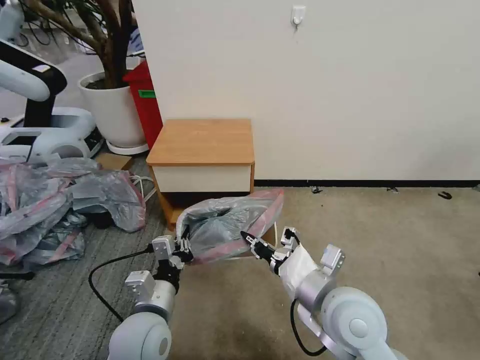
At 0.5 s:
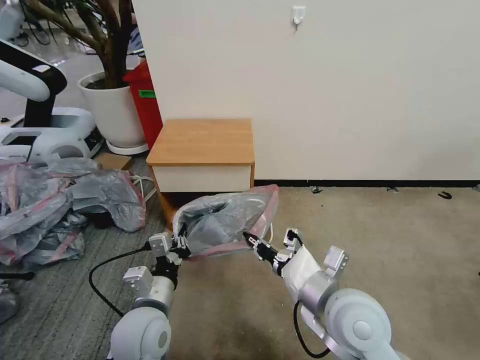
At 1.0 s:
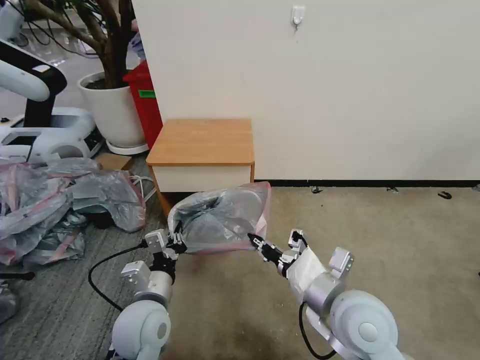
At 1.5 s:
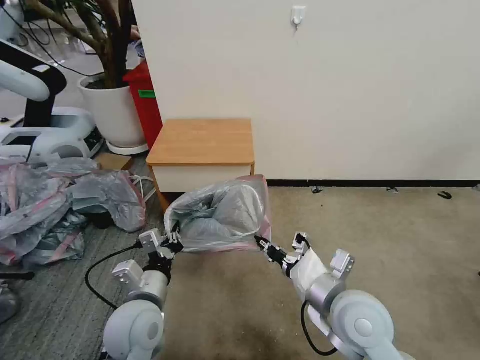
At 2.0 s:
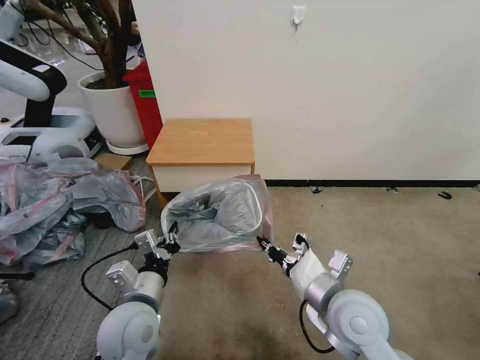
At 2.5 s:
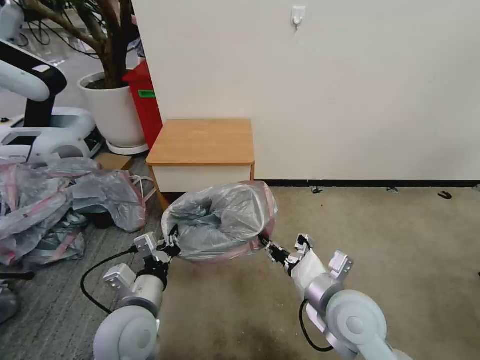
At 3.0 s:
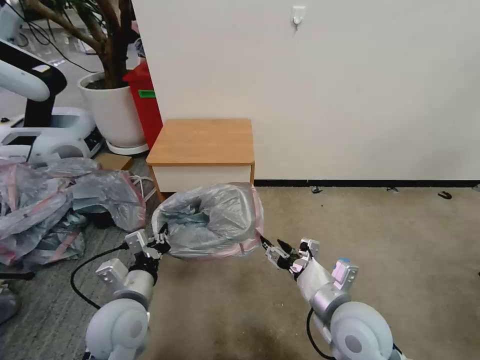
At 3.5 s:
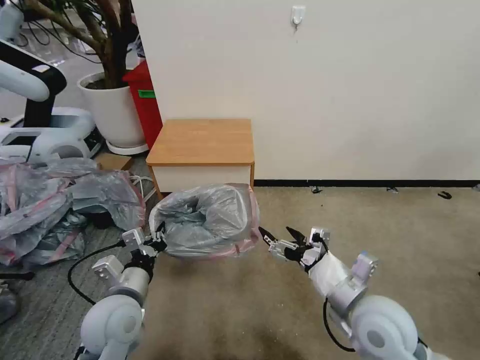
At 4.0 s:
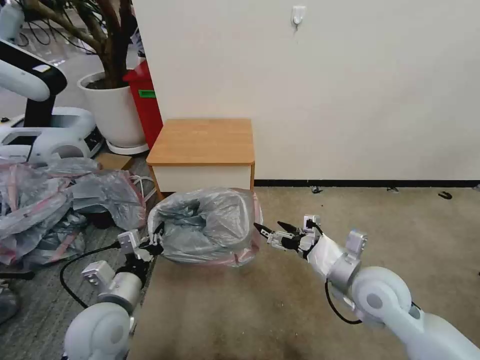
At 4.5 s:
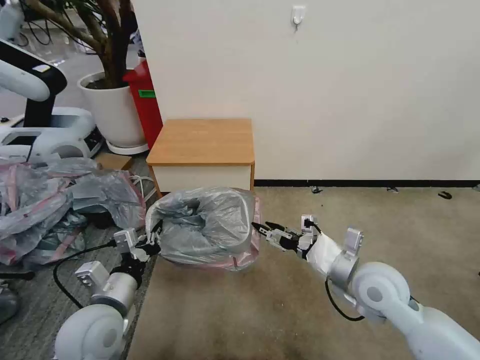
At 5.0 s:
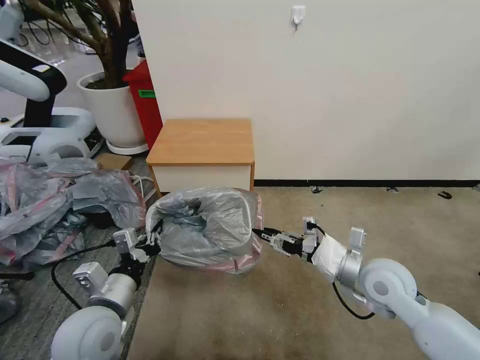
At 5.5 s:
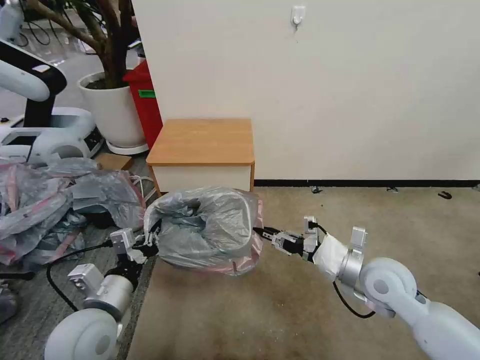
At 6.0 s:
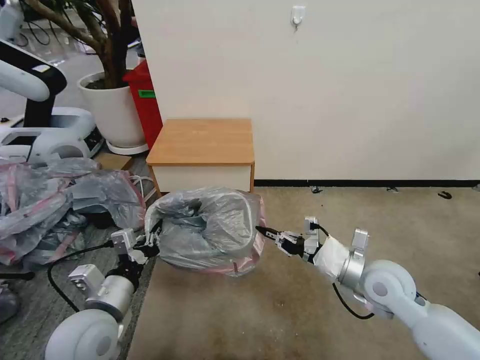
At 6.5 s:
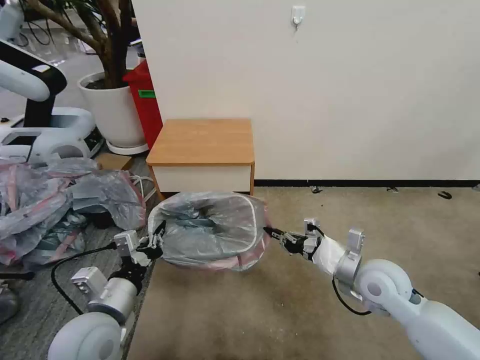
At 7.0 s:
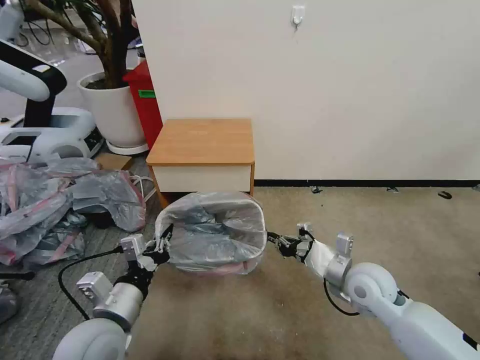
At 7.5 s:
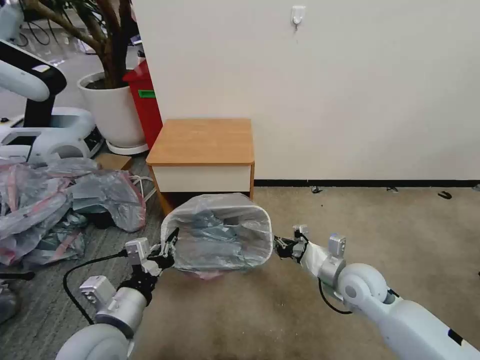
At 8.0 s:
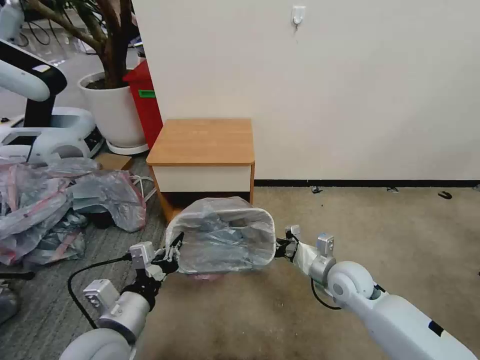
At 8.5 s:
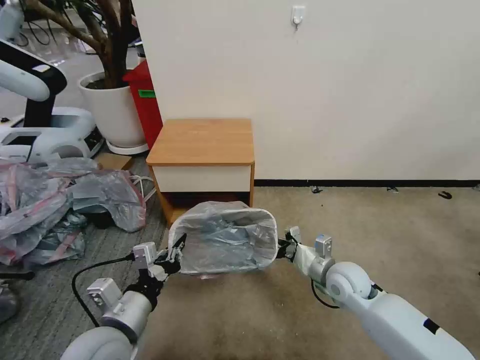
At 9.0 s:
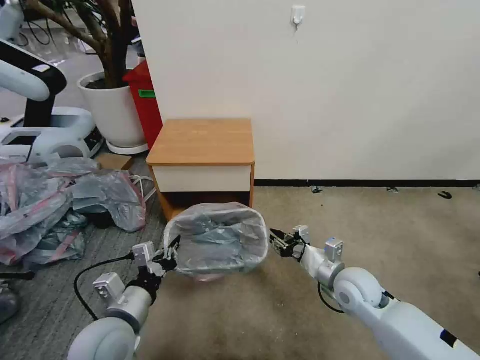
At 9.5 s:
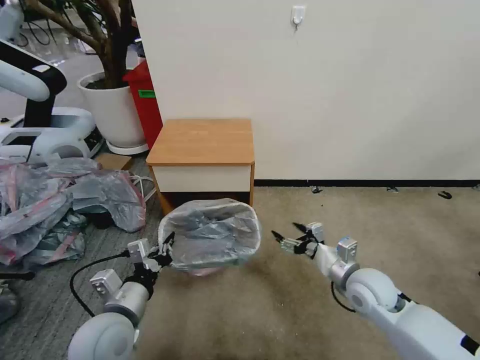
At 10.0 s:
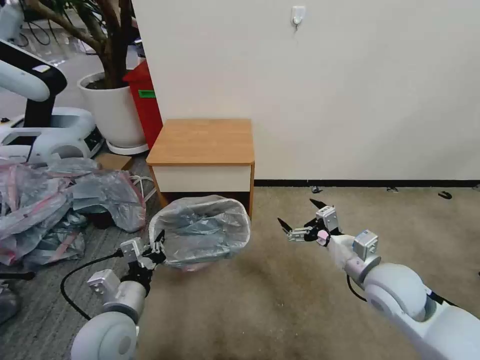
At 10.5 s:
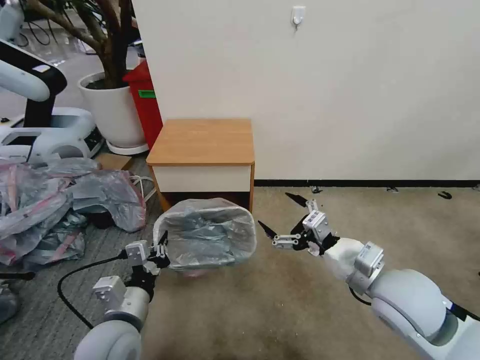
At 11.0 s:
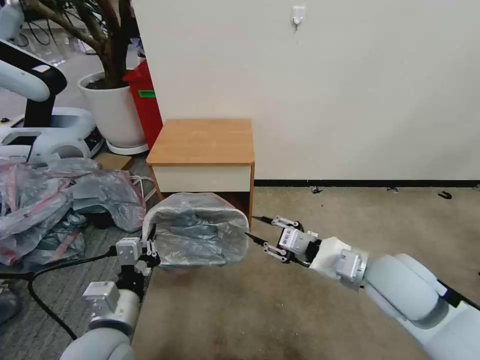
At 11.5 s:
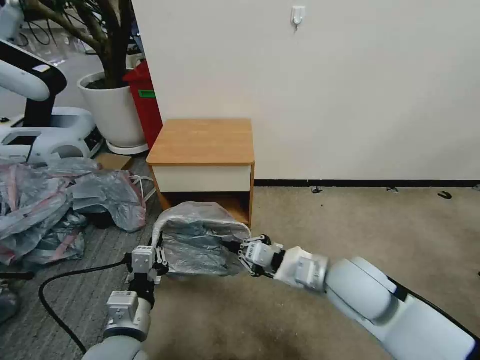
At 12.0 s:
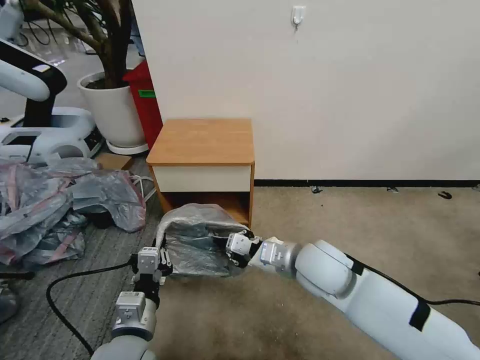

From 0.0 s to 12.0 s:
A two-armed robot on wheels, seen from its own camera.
Task of the whole recording: Pick up the garbage bag from the table and place it over the trash can.
From 0.0 s to 2.0 s: The grippers stay close to where they were, moving slightly.
From 2.0 s to 4.0 s: The left gripper heads to the left, covering approximately 5 cm, while the right gripper moves to the right, some 5 cm, and opens up.
From 4.0 s to 6.0 s: The right gripper closes up.
From 6.0 s to 8.0 s: The right gripper travels downward by approximately 10 cm.
From 8.0 s to 10.0 s: The left gripper ends up roughly 5 cm from where it was. The right gripper heads upward, covering about 10 cm, and opens.
From 10.0 s to 12.0 s: The left gripper moves approximately 5 cm. Meanwhile the right gripper is displaced to the left by about 15 cm, and closes up.

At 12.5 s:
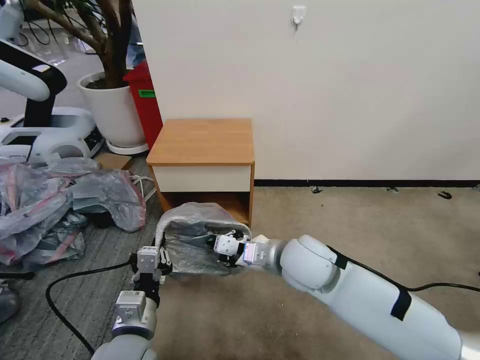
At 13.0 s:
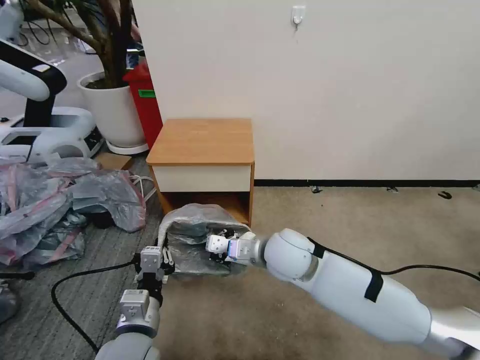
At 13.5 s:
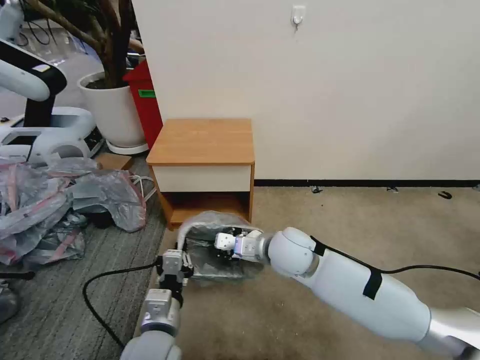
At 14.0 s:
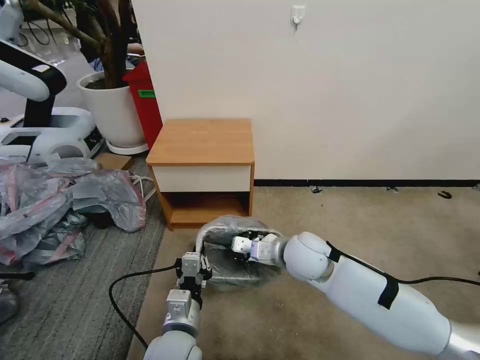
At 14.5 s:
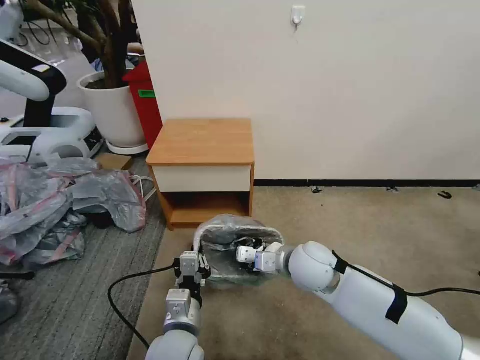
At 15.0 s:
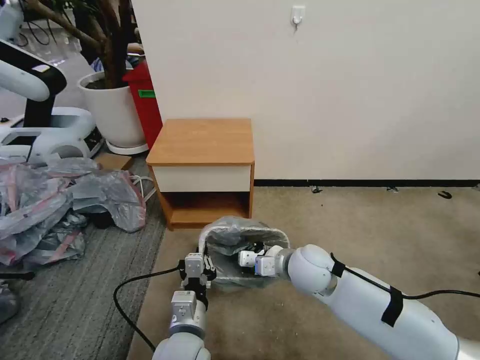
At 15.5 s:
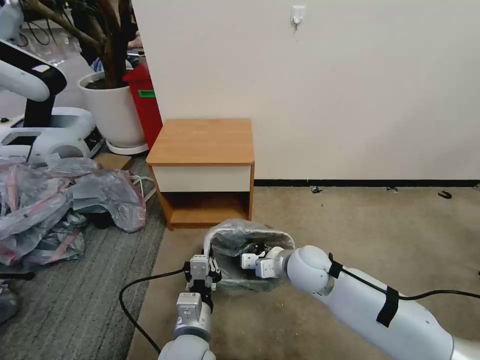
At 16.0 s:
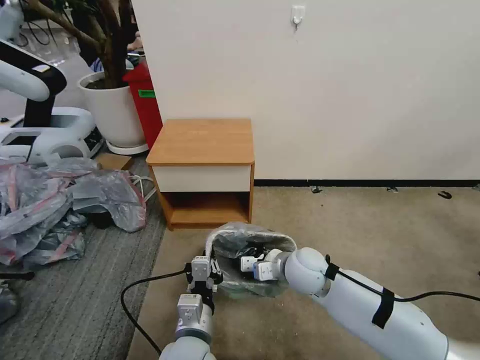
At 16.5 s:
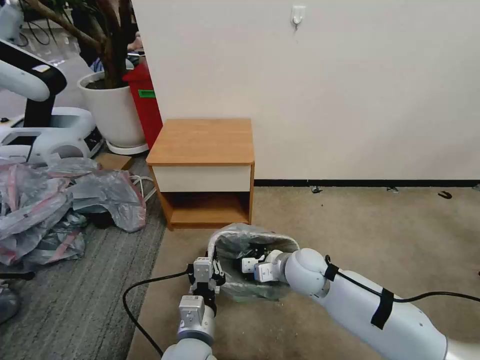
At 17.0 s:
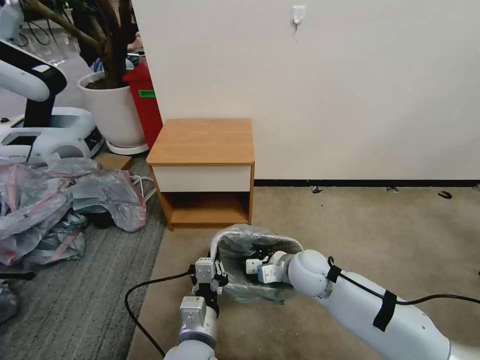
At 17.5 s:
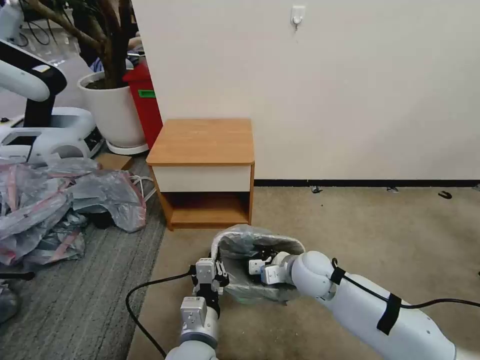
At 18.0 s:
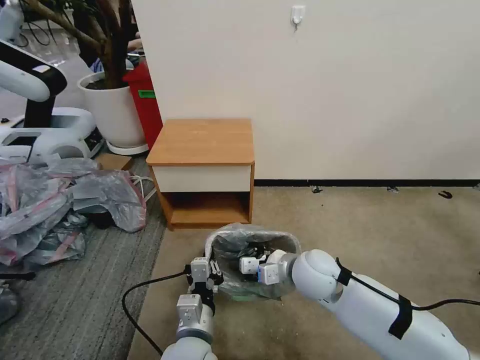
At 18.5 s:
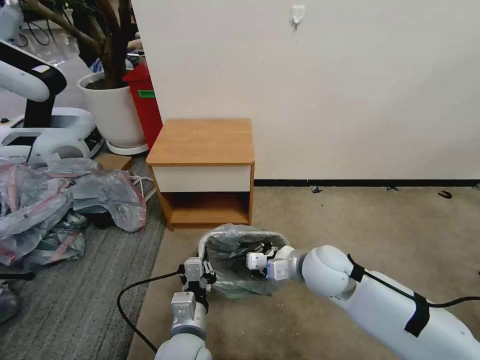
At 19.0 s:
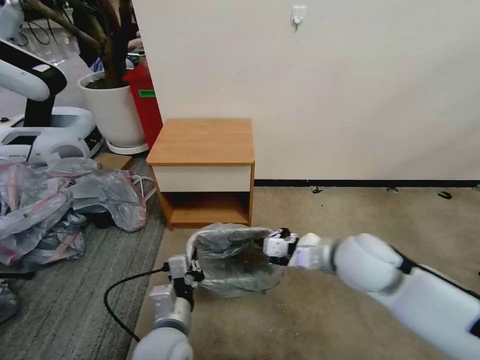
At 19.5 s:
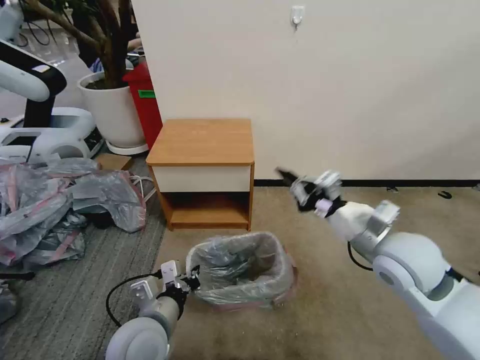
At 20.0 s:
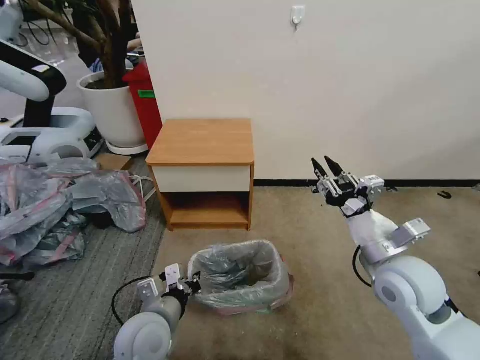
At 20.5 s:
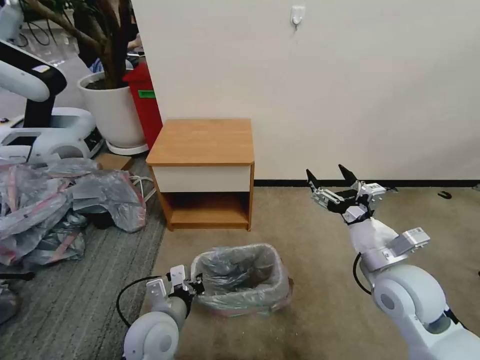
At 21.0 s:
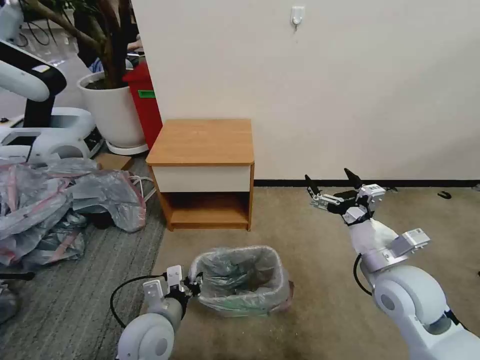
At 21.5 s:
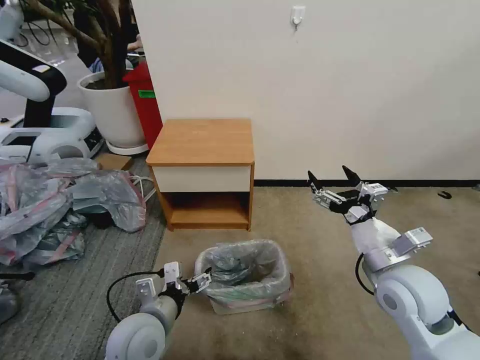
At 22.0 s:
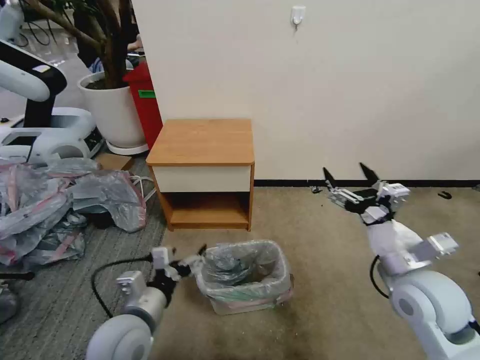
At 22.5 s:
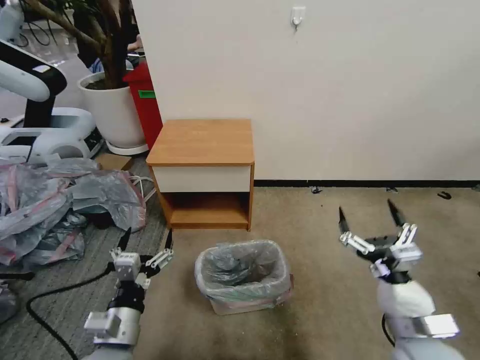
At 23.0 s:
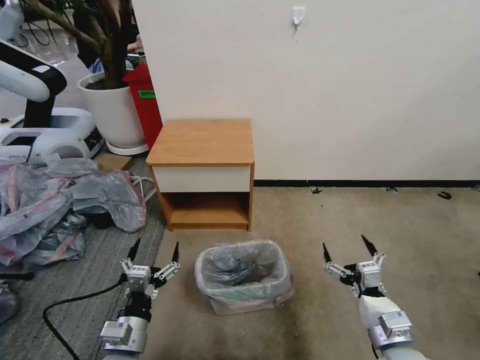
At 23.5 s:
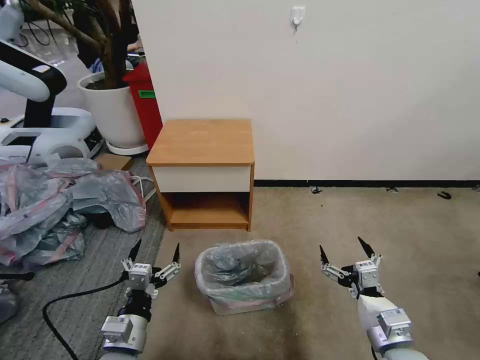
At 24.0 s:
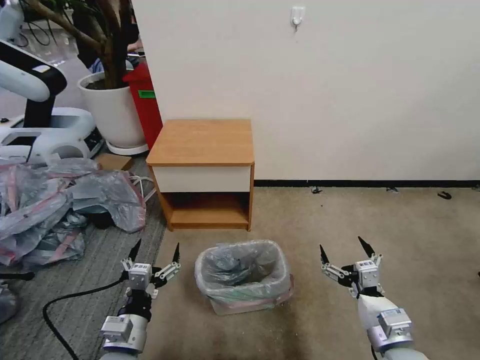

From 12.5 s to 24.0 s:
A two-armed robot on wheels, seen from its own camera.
Task of the whole recording: Pick up the garbage bag from the table and place it over the trash can.
From 12.5 s to 14.5 s: The right gripper moves downward, roughly 5 cm. Meanwhile the left gripper travels to the right by roughly 5 cm.
From 14.5 s to 16.5 s: There are only small adjustments of the grippers.
From 16.5 s to 18.5 s: The right gripper shifts by approximately 5 cm.
From 18.5 s to 20.0 s: The left gripper heads to the left, covering roughly 10 cm. The right gripper moves to the right, upward and backward, roughly 15 cm, and opens.
From 20.0 s to 22.0 s: The left gripper opens up; the right gripper opens.
From 22.0 s to 24.0 s: The right gripper shifts about 15 cm downward and backward. The left gripper travels downward by approximately 5 cm.

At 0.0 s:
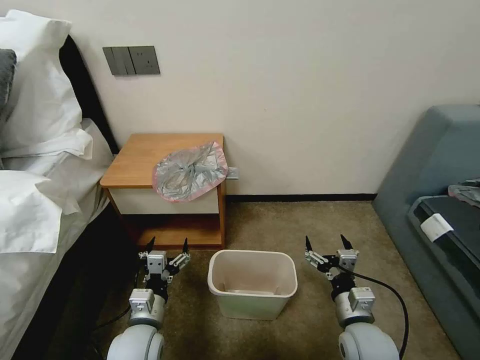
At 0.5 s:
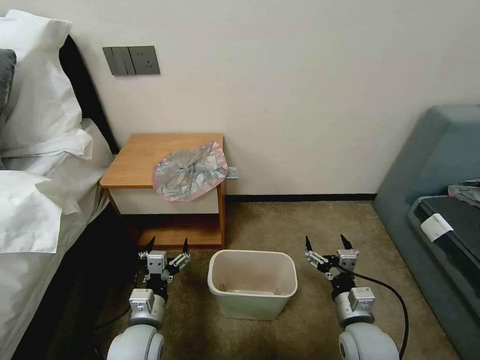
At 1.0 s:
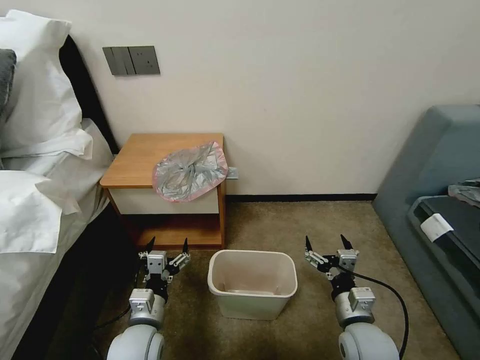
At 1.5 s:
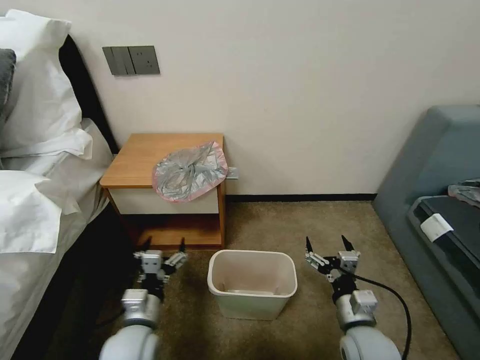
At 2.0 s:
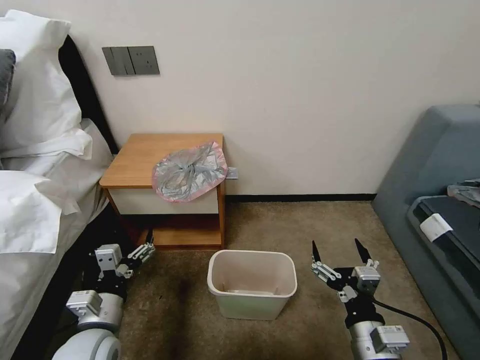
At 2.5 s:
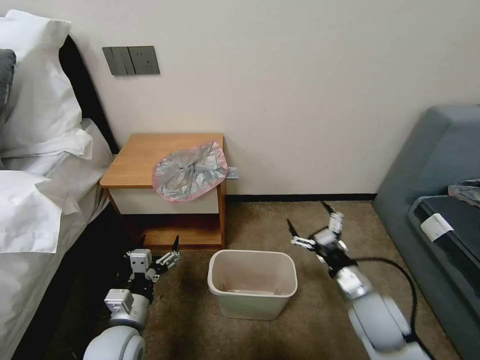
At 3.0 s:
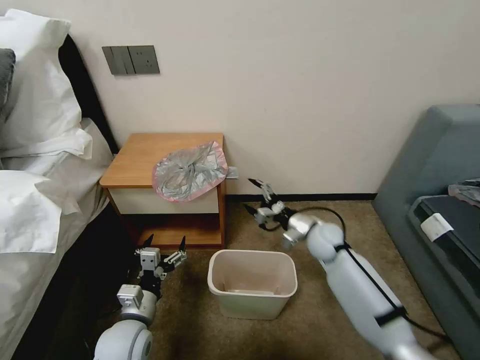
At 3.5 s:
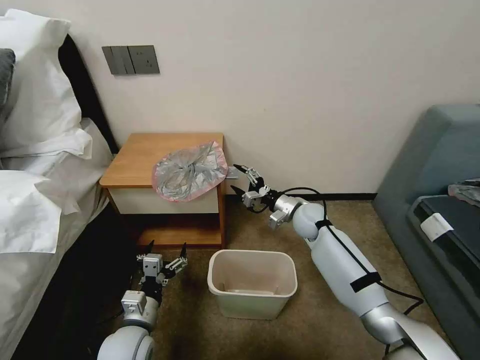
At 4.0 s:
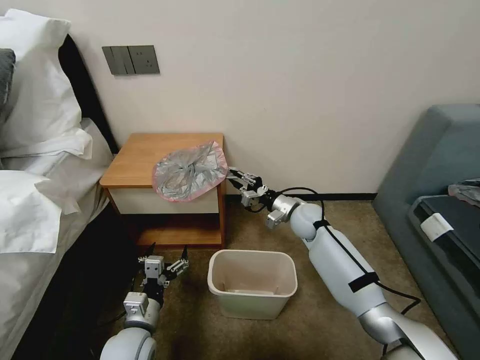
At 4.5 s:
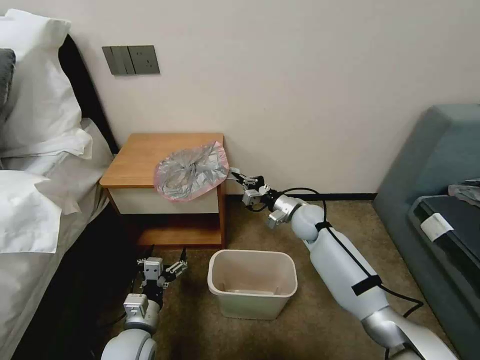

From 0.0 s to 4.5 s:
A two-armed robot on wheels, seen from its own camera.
Task of the whole recording: Pick up the garbage bag from the table and place it over the trash can.
From 2.0 s to 4.5 s: The right gripper goes approximately 35 cm forward, and closes up. Meanwhile the left gripper heads downward, covering roughly 10 cm.
